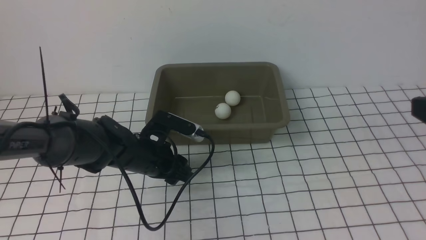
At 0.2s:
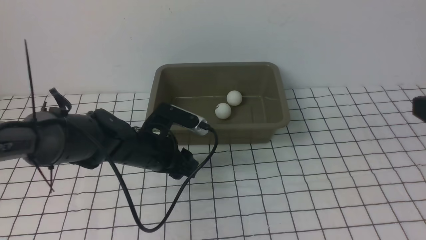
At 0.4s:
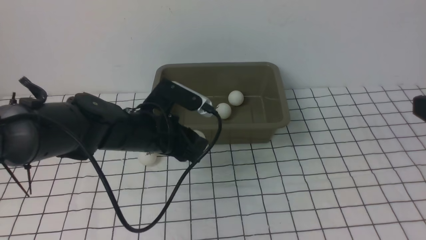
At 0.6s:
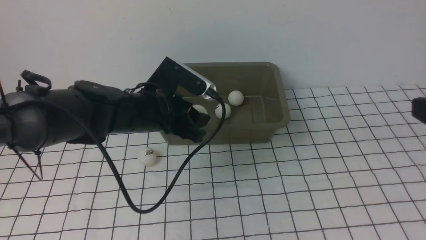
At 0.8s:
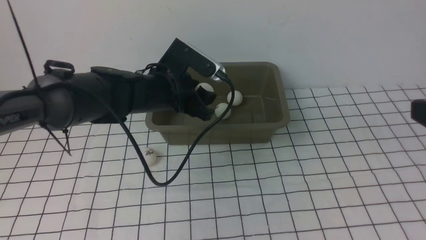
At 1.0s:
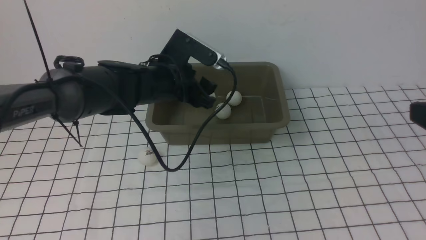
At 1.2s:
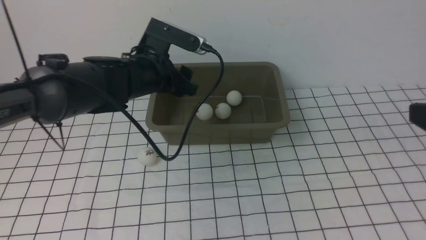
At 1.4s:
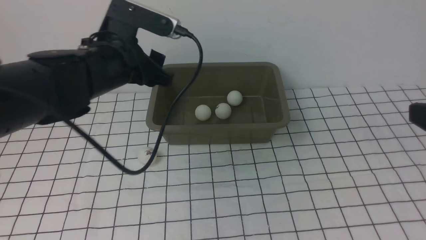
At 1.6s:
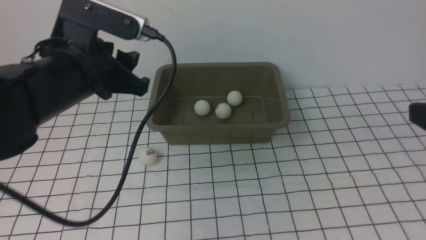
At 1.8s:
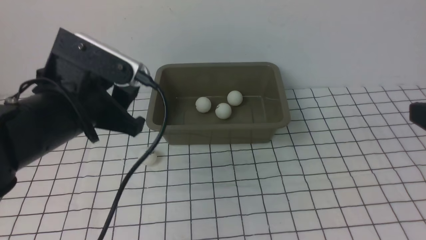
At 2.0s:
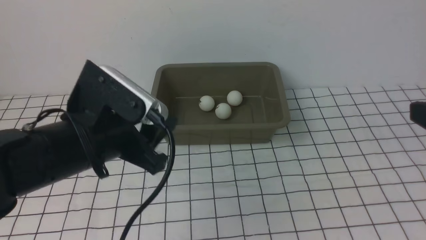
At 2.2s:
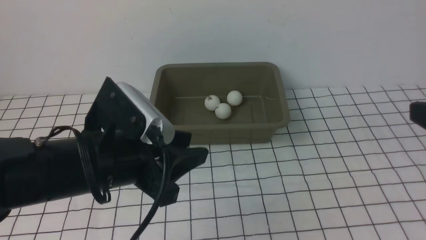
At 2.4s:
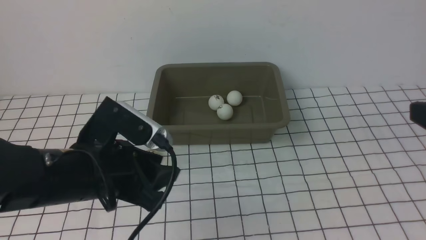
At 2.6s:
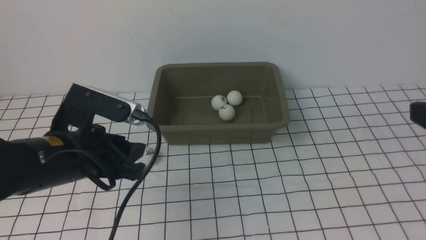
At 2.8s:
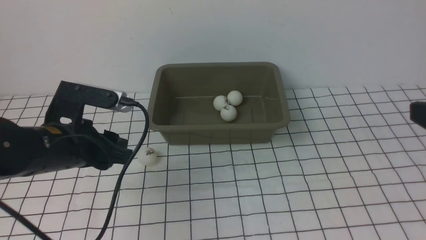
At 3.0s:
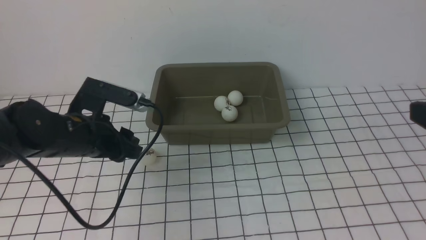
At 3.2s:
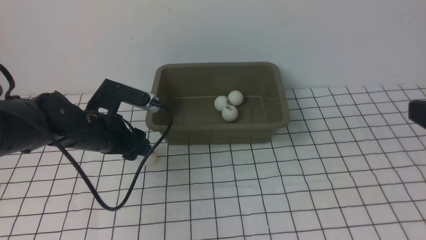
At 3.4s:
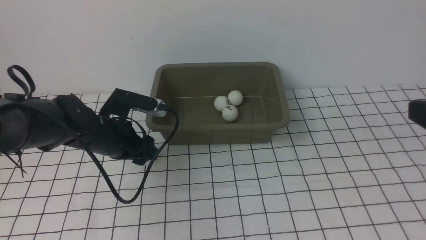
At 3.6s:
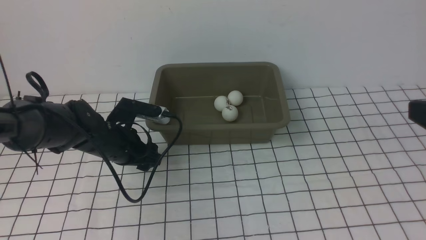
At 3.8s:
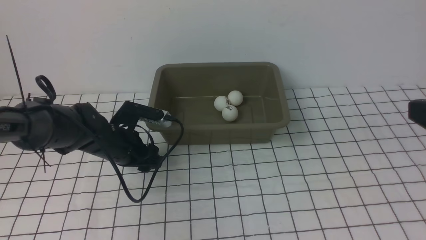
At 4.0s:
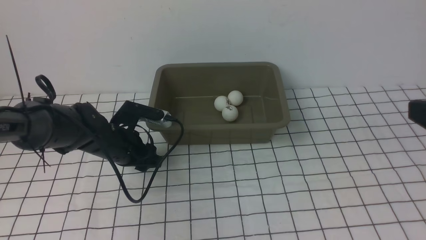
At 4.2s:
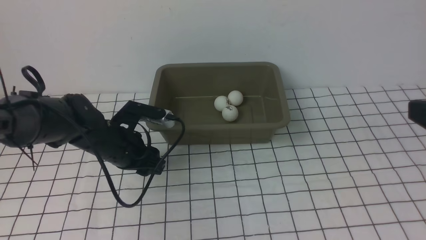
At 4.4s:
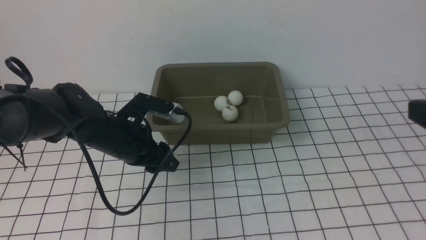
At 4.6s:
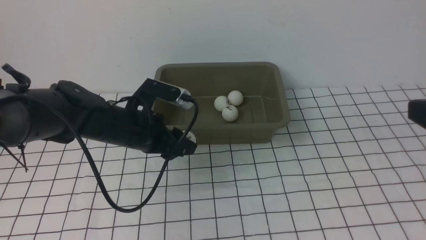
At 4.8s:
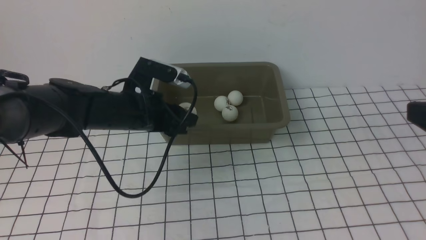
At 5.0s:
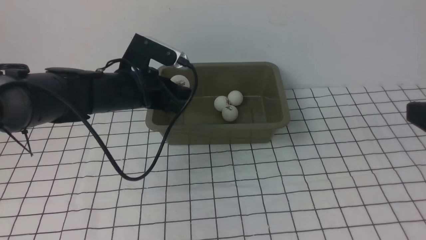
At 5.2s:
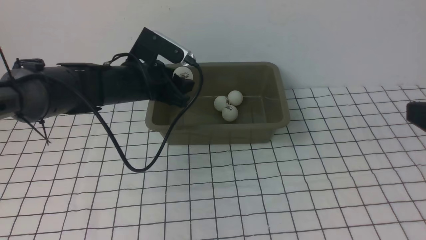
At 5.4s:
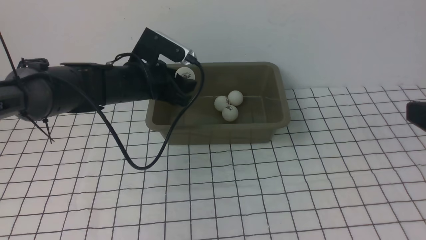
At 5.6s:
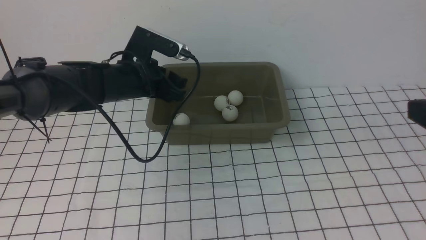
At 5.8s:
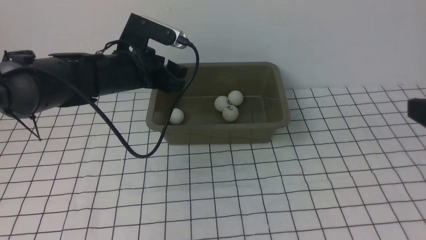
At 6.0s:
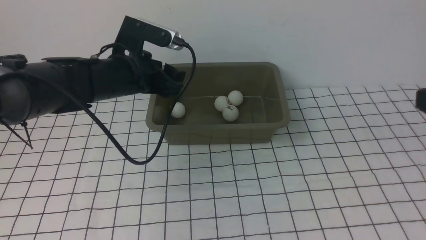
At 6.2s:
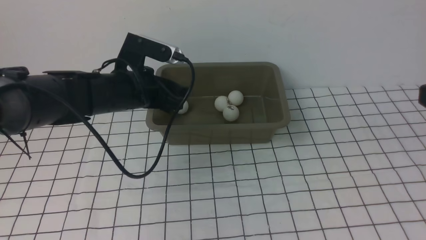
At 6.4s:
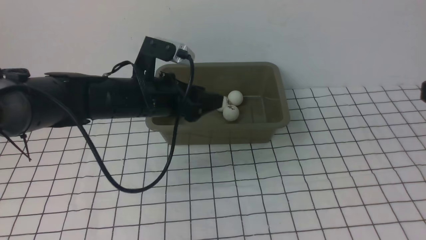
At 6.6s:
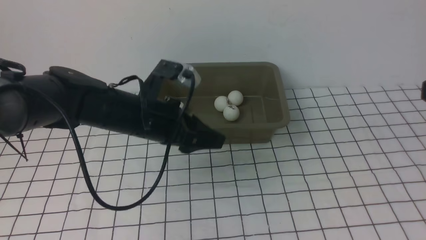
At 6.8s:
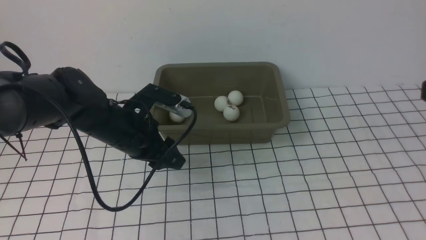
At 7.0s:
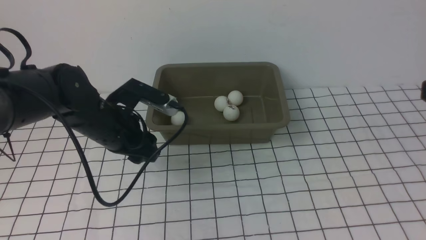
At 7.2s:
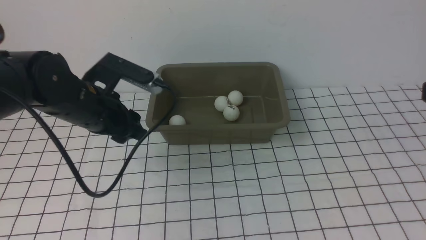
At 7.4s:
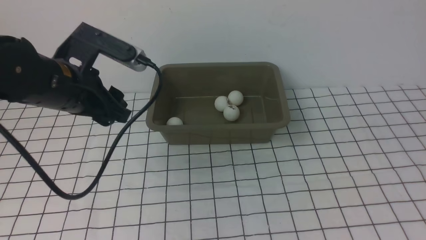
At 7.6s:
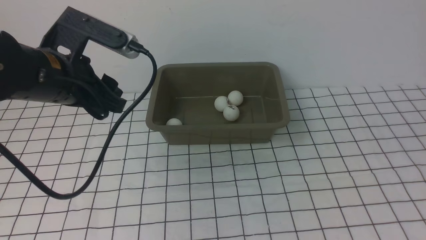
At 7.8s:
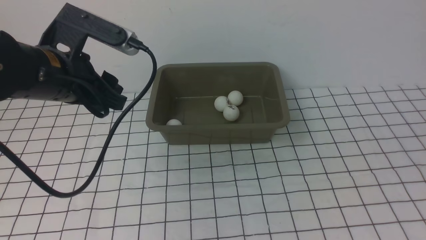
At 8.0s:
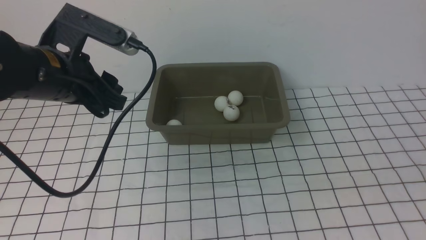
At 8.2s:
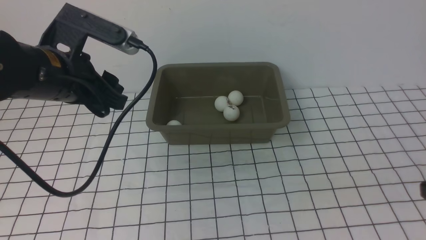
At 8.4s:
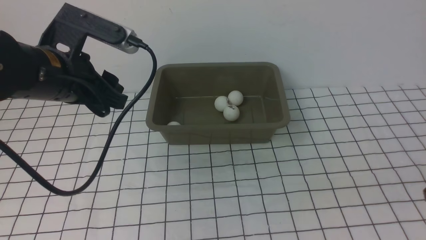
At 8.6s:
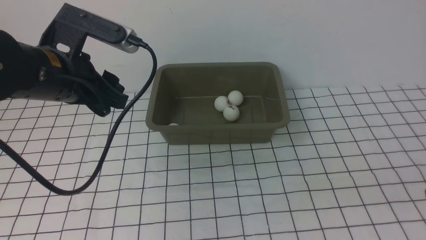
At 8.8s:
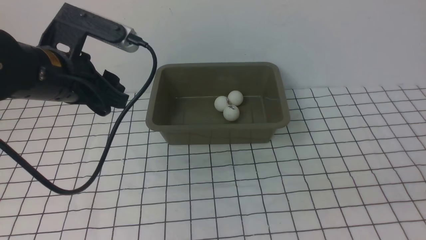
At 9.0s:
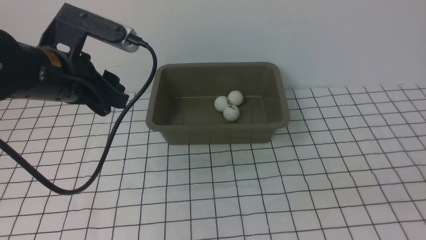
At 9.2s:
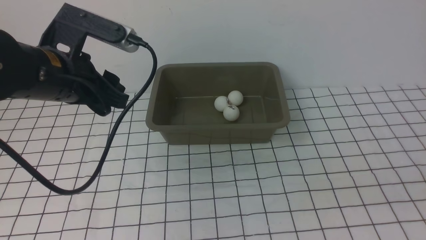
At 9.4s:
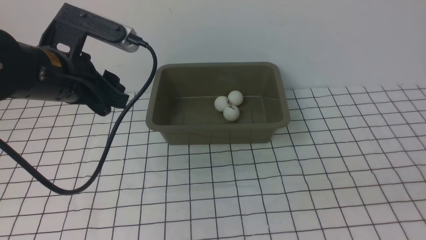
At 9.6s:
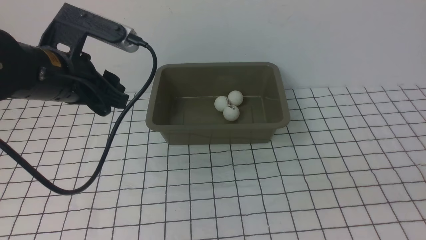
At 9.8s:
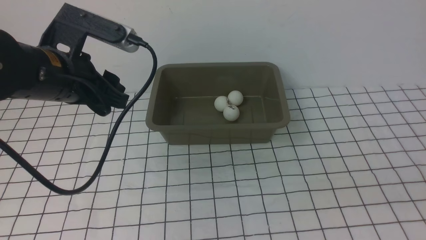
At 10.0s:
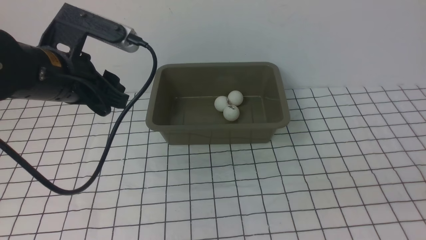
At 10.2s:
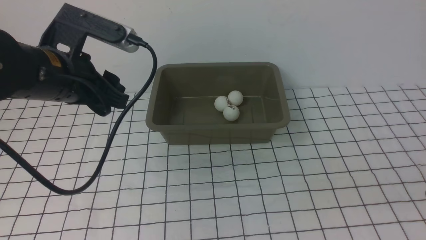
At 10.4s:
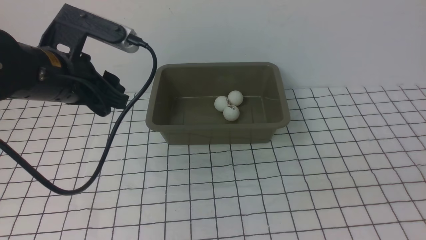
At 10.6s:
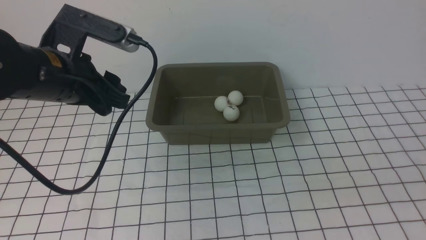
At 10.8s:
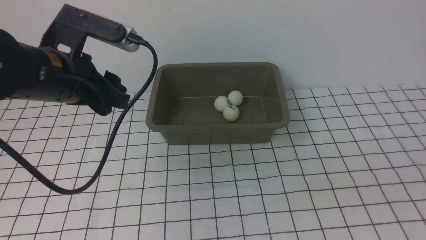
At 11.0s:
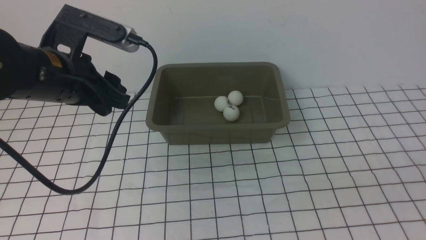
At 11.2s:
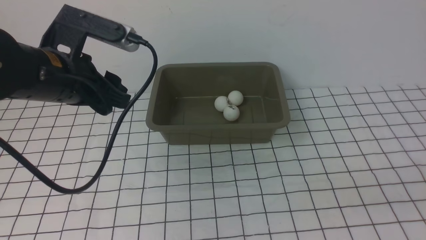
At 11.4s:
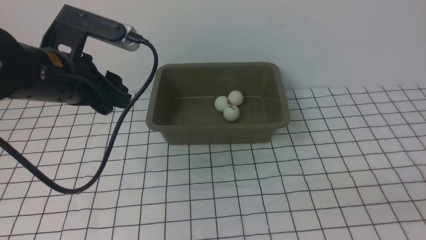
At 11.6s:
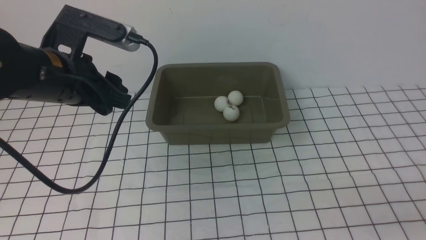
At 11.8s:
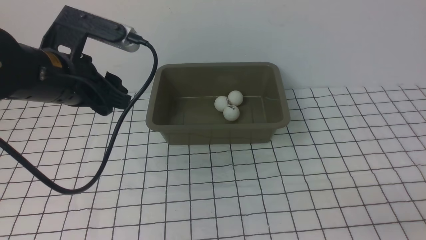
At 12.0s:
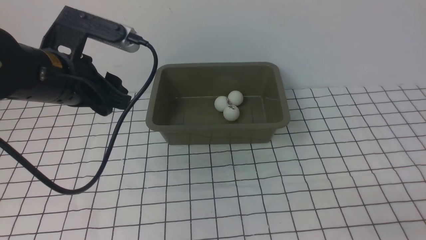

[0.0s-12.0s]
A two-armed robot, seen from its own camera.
Step, 0.4s to 1.2s: use the left arm to put the table tennis ball into the box.
Step, 1.4s to 4.2s: use the left arm to clamp the table tennis ball closest to it.
Step, 4.4s to 5.6s: use the left arm to put the table tennis ball into the box.
0.0s to 1.6s: The left gripper heads upward and backward, covering approximately 15 cm, and closes up.
1.6s to 3.0s: The left gripper is displaced downward and forward by approximately 15 cm, and opens up.
3.0s to 4.4s: The left gripper ends up roughly 5 cm from where it was, and closes its fingers.
4.4s to 6.0s: The left gripper opens up.
6.0s to 7.6s: The right gripper shifts by roughly 5 cm; the left gripper travels upward and to the left by some 10 cm.

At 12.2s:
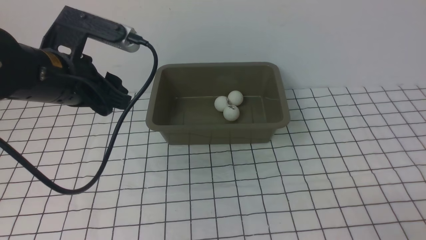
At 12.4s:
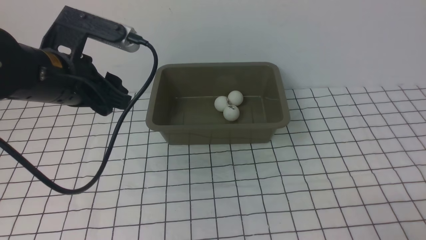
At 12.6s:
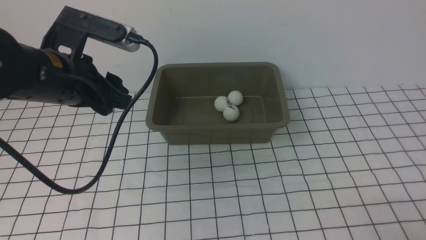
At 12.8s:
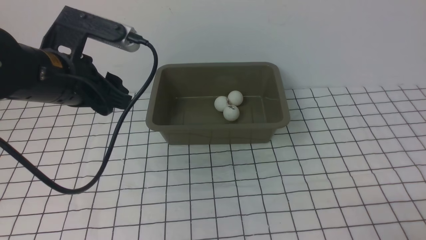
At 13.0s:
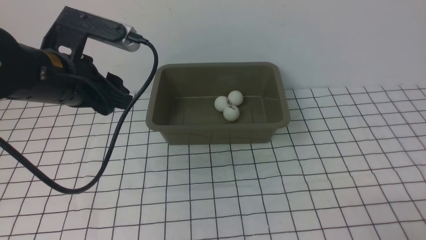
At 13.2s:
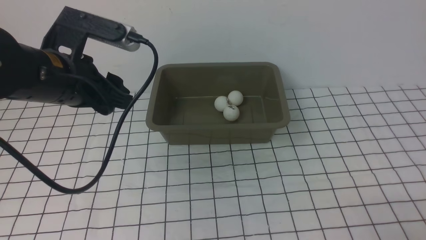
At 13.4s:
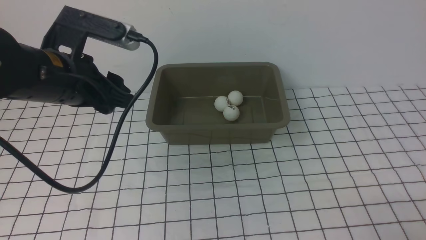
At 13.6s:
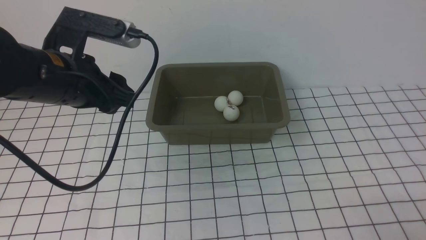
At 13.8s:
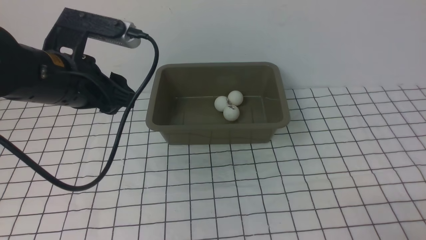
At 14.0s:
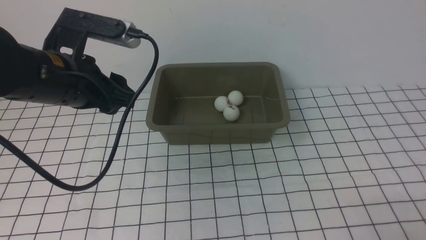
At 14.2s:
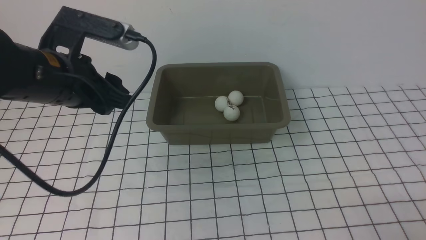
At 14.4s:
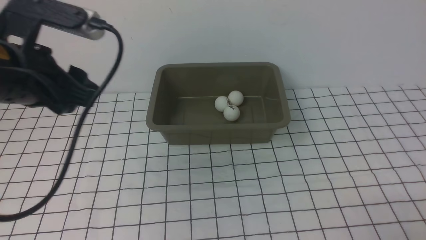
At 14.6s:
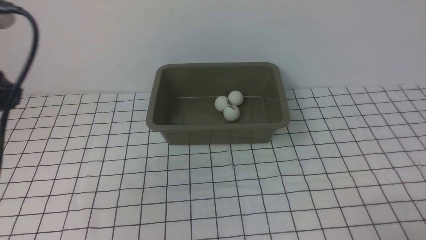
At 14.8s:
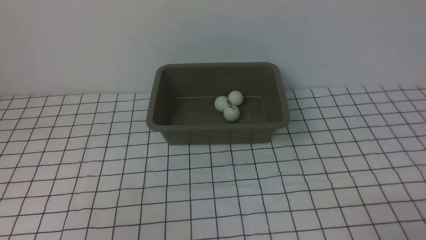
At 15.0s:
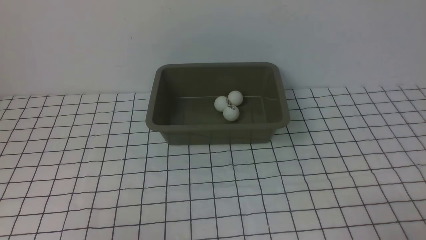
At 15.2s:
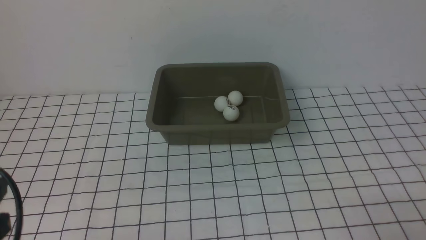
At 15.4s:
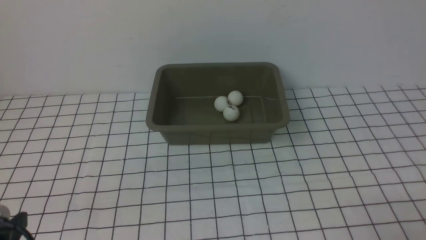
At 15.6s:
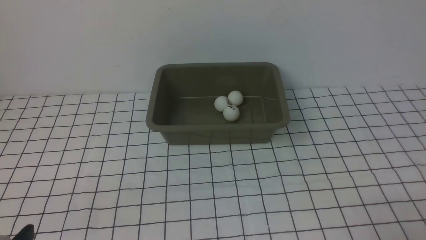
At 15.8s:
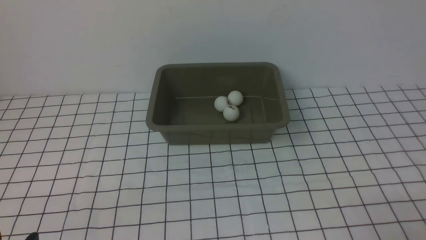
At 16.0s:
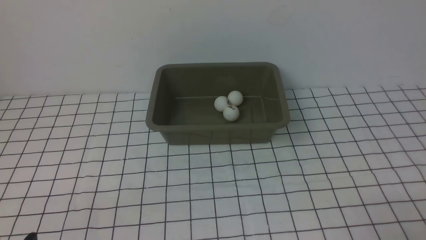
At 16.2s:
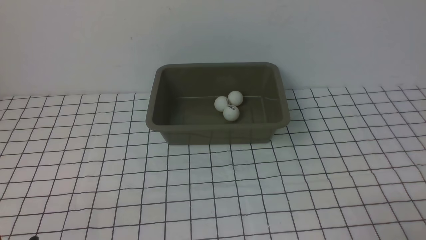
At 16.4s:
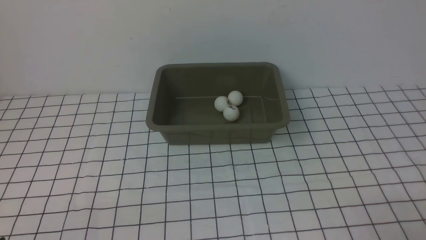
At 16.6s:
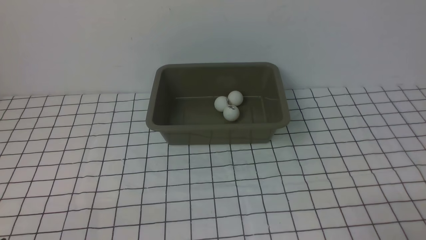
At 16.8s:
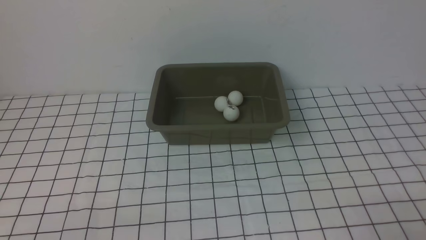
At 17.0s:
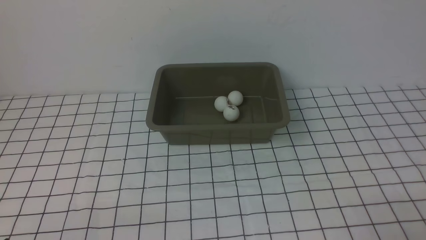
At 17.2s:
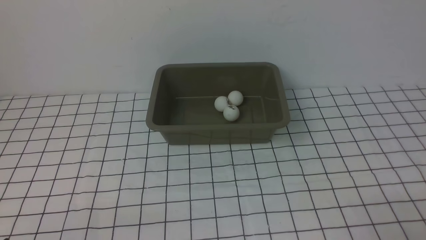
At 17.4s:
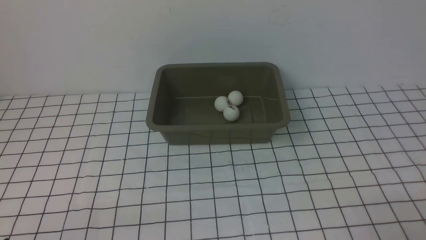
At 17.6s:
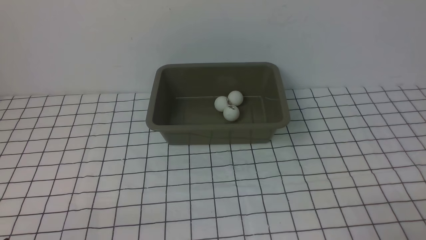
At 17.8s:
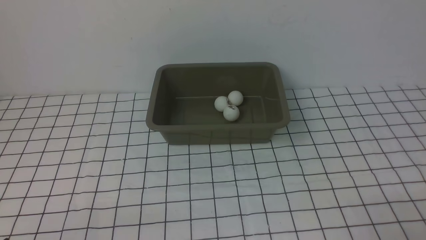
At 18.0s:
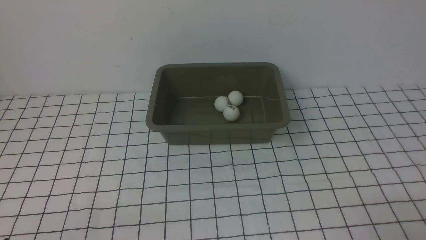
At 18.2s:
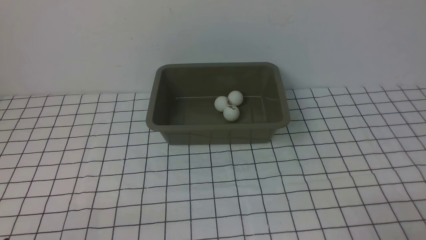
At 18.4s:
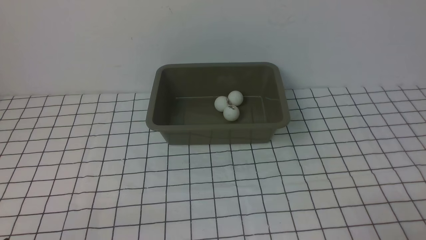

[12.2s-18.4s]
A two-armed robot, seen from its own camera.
12.2s to 13.8s: The grippers make only small movements.
13.8s to 15.4s: The left gripper goes roughly 20 cm backward.
15.4s to 16.8s: The left gripper goes some 10 cm downward.
16.8s to 18.4s: Both grippers stay put.
